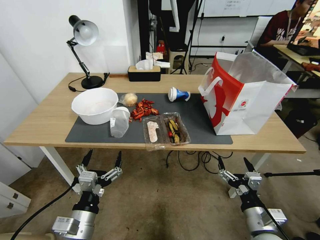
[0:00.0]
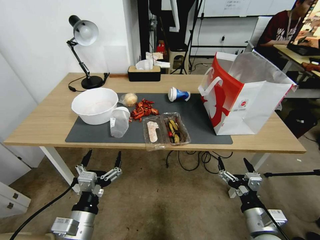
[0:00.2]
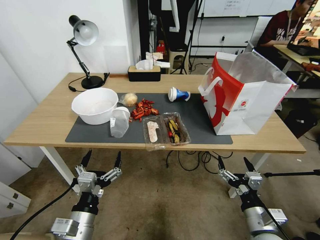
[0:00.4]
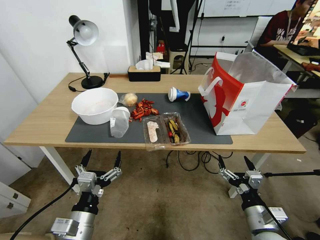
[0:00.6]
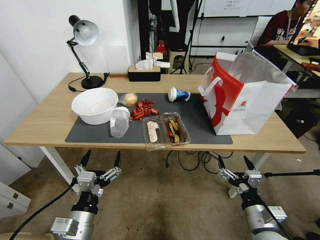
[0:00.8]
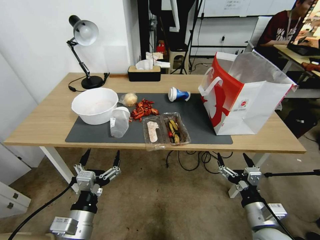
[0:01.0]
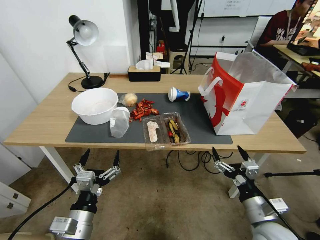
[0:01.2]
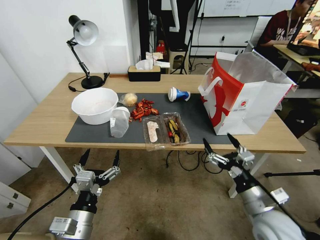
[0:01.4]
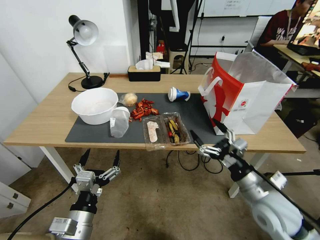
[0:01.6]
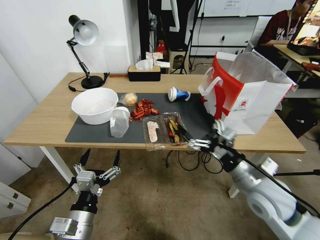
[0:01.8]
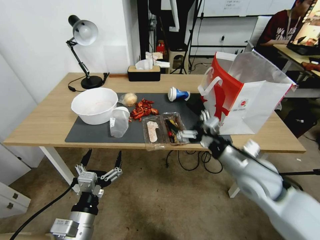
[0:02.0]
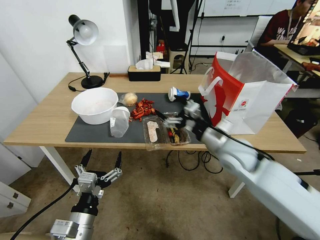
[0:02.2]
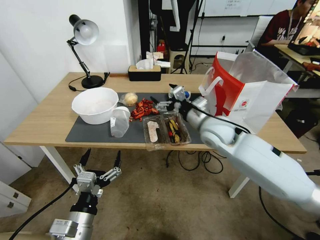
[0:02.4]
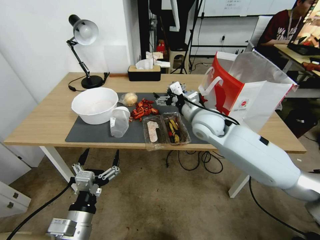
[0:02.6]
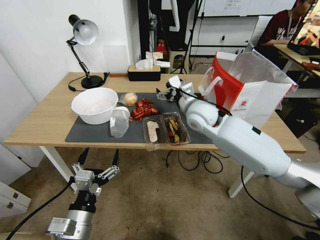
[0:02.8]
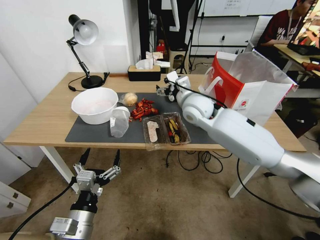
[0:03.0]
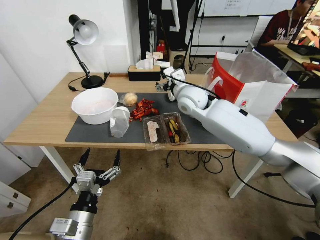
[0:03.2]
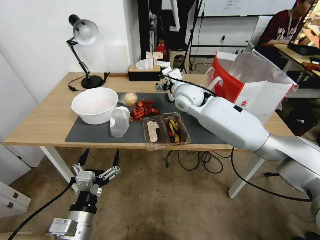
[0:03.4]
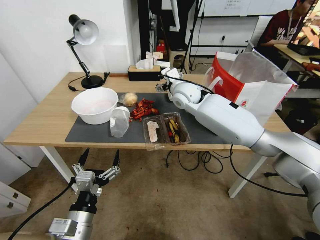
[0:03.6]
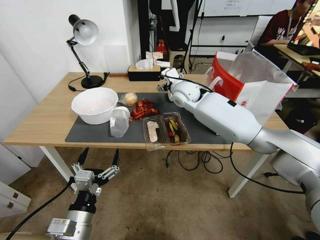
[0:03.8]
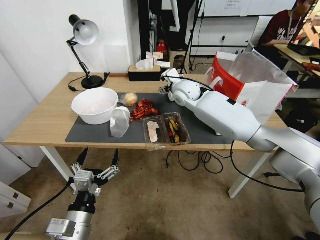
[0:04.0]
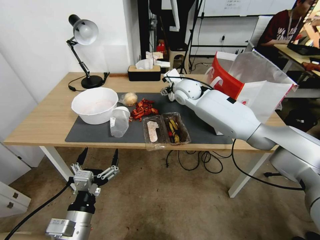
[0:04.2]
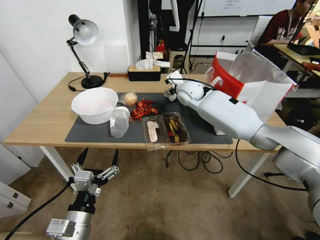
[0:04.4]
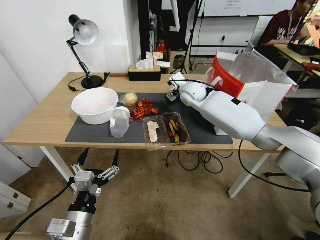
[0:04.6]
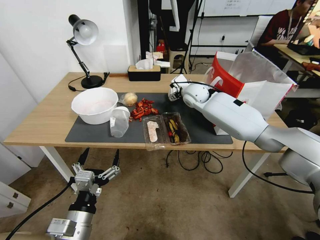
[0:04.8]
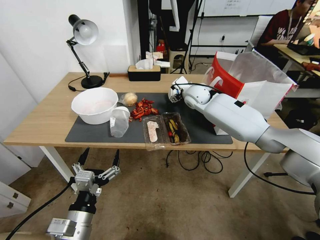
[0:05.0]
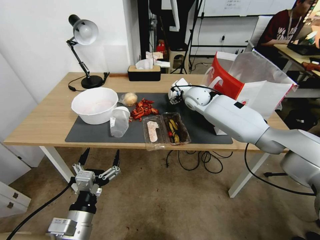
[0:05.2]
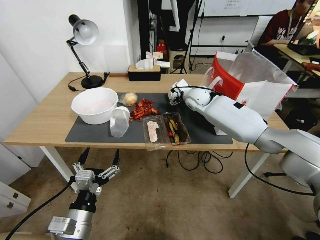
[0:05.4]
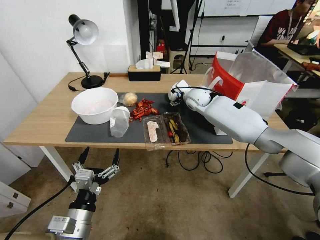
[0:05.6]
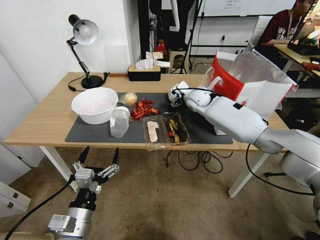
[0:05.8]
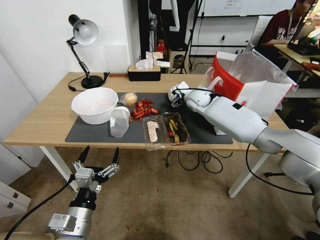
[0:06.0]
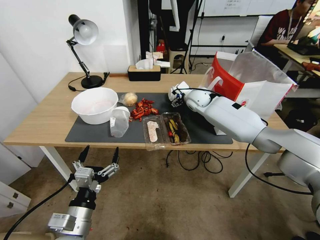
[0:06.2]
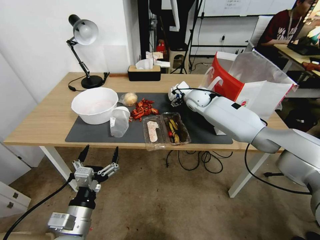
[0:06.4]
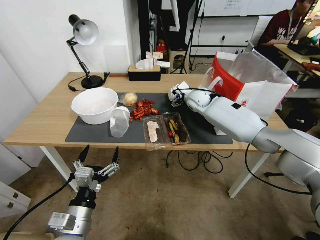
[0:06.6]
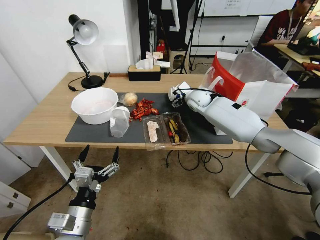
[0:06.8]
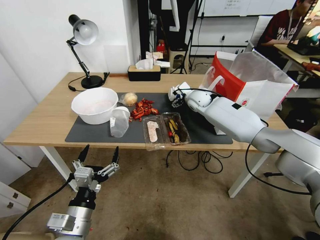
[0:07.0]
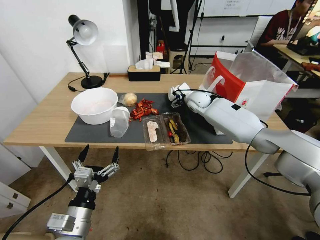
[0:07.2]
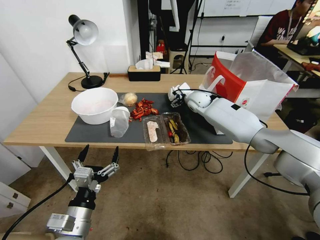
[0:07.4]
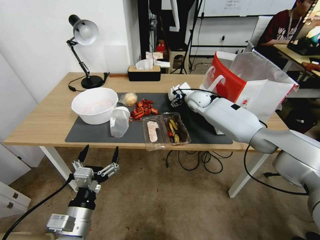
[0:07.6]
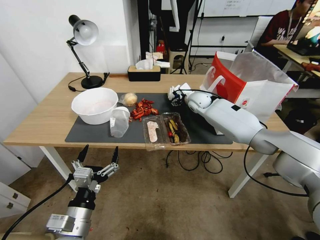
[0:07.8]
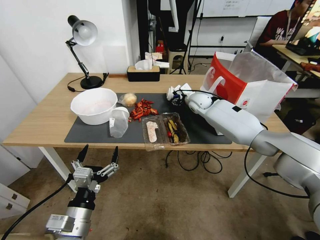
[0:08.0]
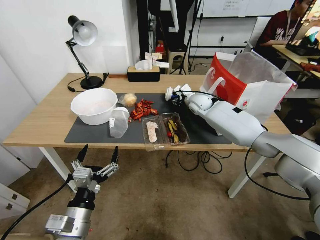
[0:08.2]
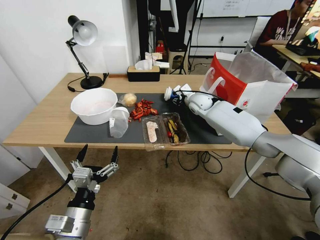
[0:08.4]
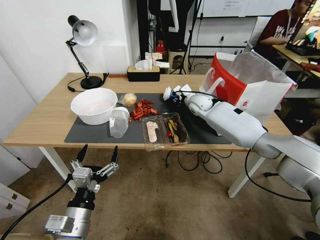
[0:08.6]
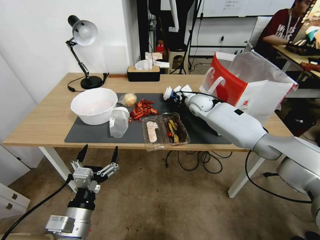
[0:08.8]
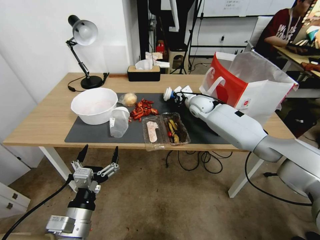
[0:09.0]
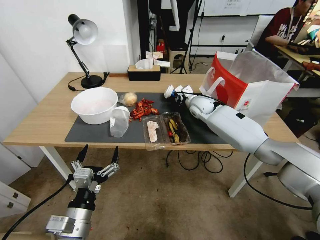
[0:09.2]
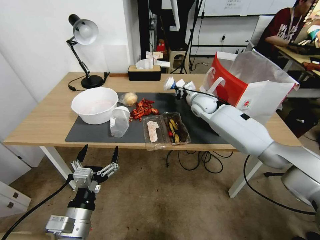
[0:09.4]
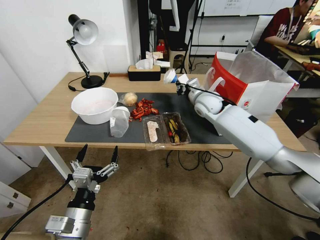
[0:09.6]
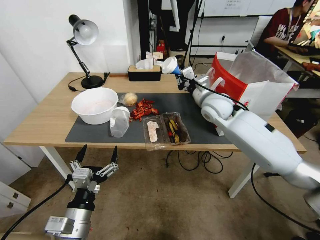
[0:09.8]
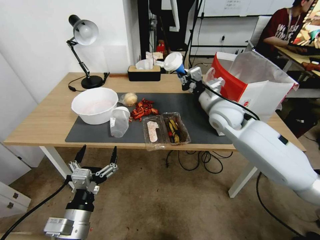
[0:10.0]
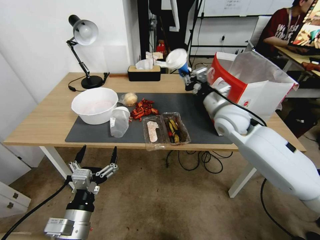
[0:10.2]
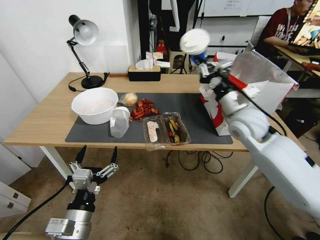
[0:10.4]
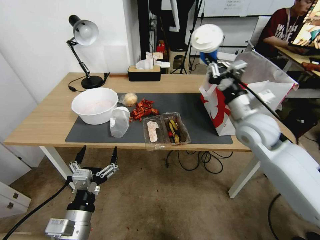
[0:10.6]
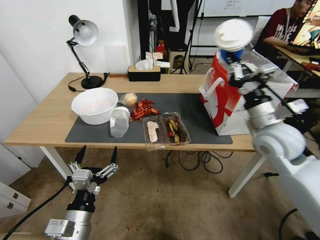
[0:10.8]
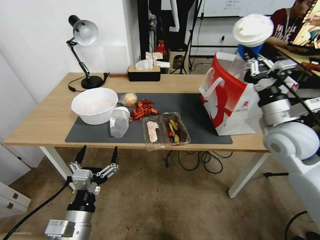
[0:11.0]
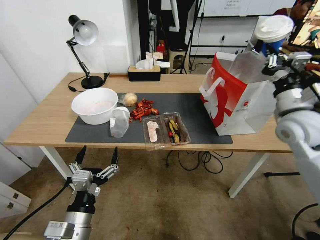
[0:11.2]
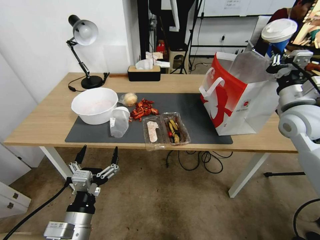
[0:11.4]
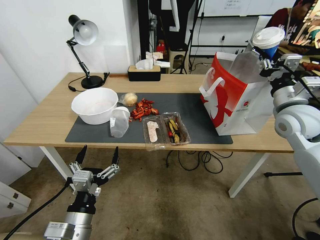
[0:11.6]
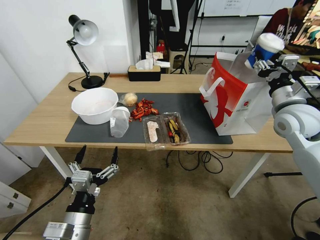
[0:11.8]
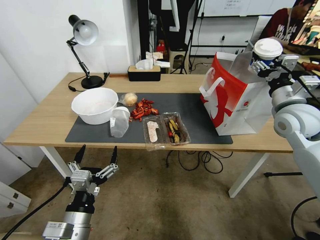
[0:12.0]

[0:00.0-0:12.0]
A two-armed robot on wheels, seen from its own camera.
0:00.0 to 0:01.6: The right gripper heads upward and forward, covering some 10 cm.
0:01.6 to 0:03.0: The right gripper heads forward, to the left and upward, covering roughly 35 cm.
0:03.0 to 0:04.4: The right gripper moves forward, about 10 cm.
0:04.4 to 0:06.0: The right gripper moves approximately 5 cm.
0:06.0 to 0:07.6: The grippers stay close to where they were, moving slightly.
0:07.6 to 0:09.0: The right gripper closes.
0:09.0 to 0:10.4: The right gripper shifts approximately 20 cm backward, upward and to the right.
0:10.4 to 0:12.0: The right gripper heads to the right, covering some 10 cm, and opens.

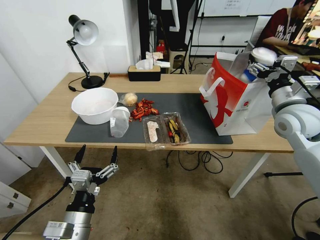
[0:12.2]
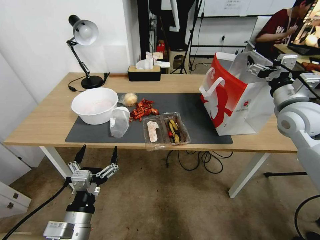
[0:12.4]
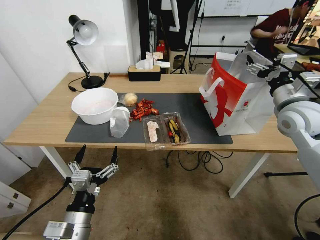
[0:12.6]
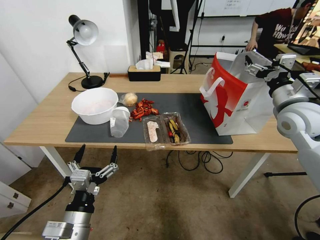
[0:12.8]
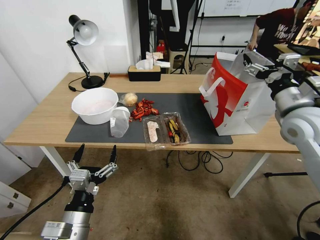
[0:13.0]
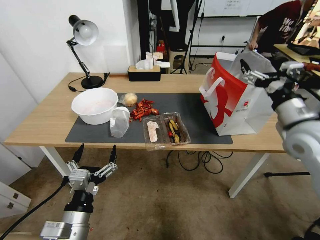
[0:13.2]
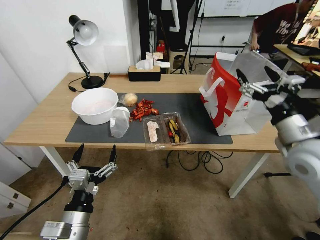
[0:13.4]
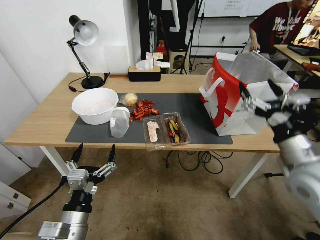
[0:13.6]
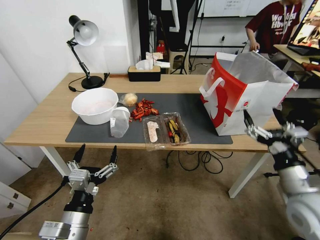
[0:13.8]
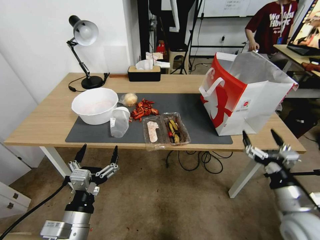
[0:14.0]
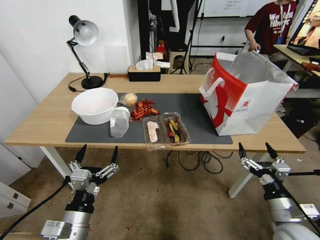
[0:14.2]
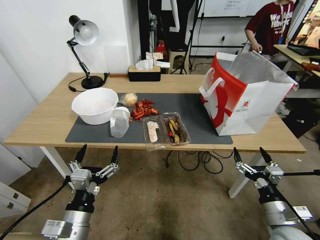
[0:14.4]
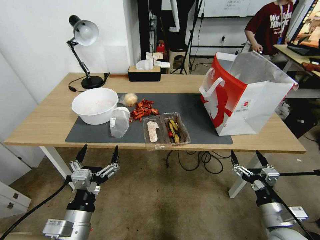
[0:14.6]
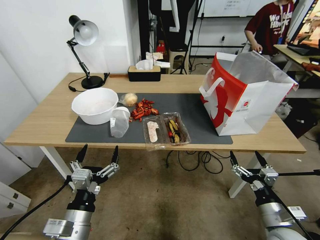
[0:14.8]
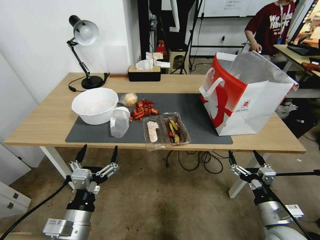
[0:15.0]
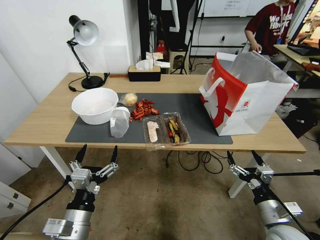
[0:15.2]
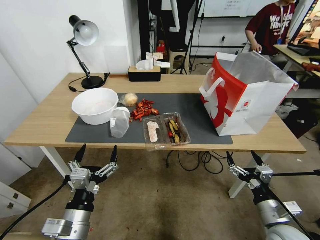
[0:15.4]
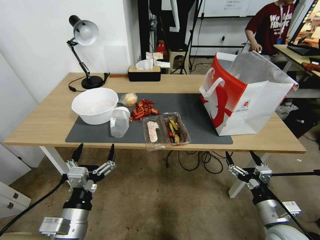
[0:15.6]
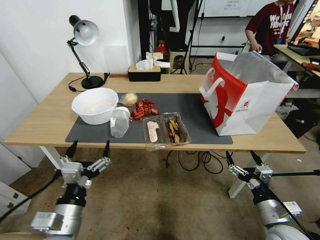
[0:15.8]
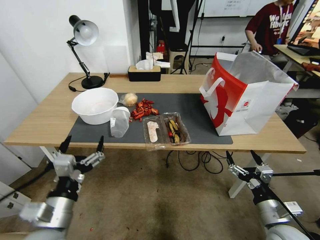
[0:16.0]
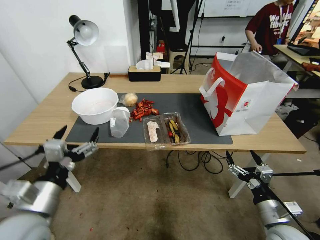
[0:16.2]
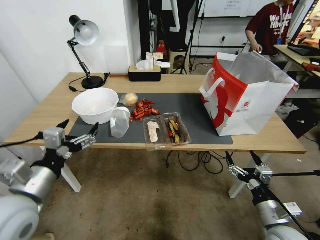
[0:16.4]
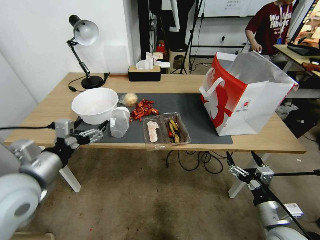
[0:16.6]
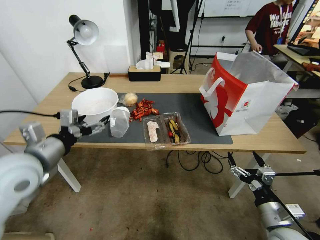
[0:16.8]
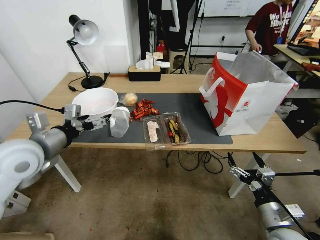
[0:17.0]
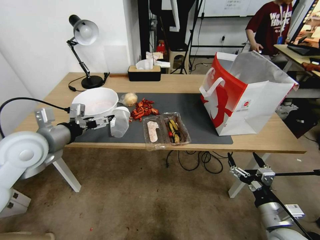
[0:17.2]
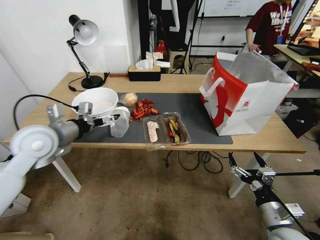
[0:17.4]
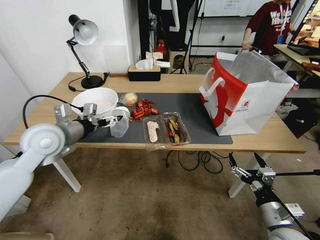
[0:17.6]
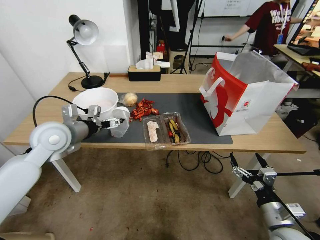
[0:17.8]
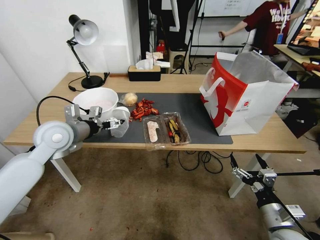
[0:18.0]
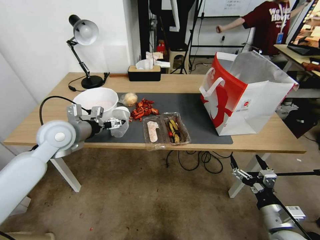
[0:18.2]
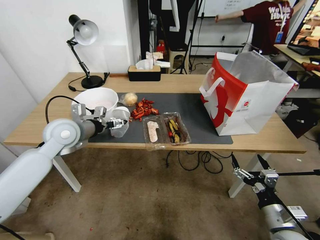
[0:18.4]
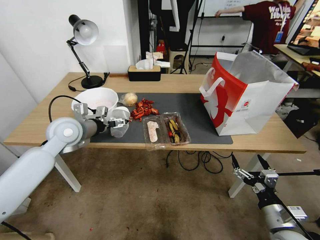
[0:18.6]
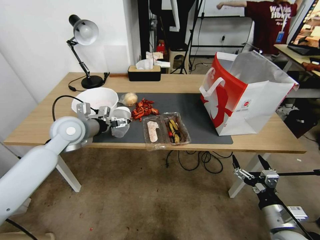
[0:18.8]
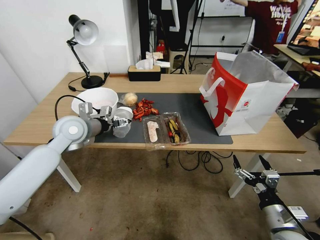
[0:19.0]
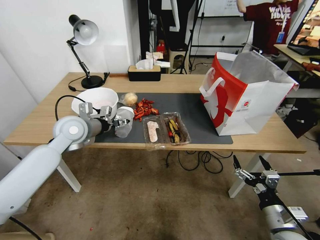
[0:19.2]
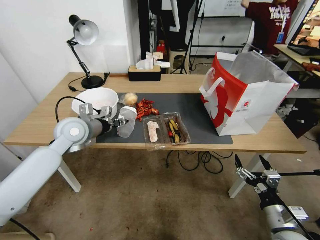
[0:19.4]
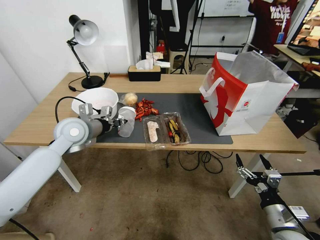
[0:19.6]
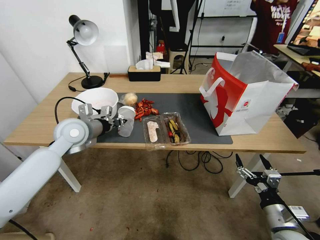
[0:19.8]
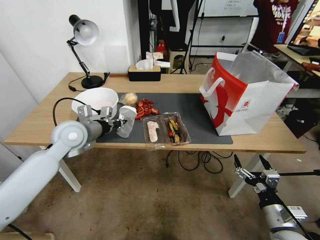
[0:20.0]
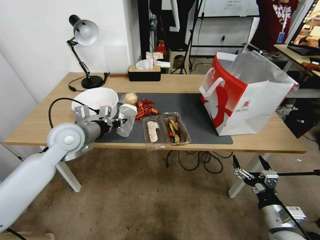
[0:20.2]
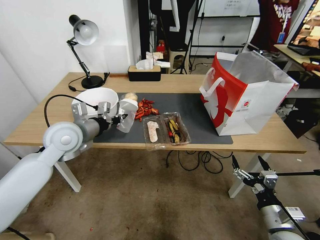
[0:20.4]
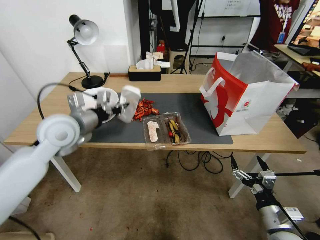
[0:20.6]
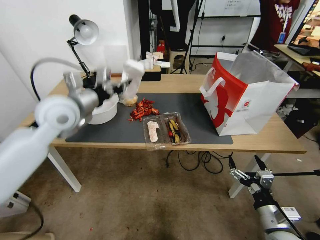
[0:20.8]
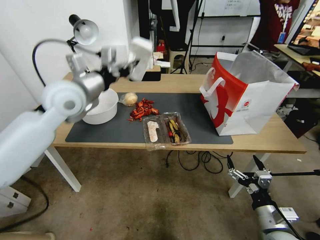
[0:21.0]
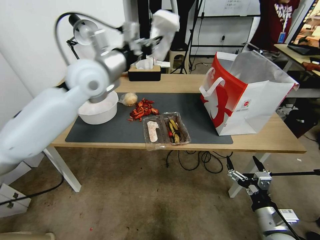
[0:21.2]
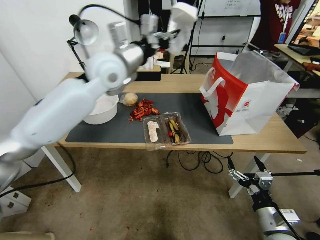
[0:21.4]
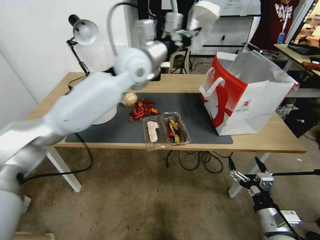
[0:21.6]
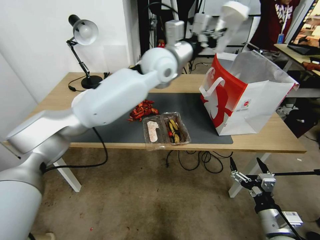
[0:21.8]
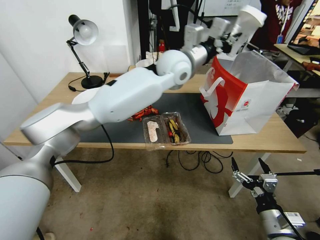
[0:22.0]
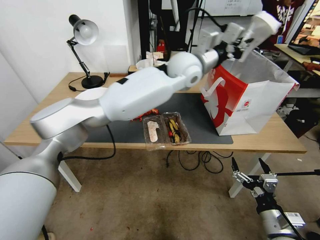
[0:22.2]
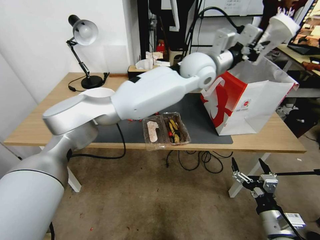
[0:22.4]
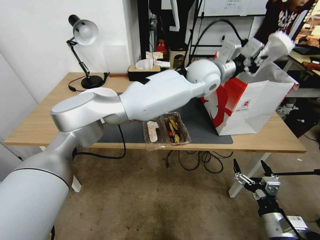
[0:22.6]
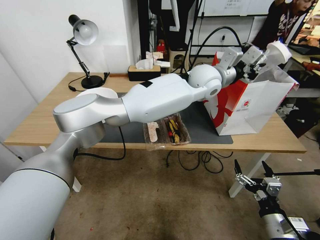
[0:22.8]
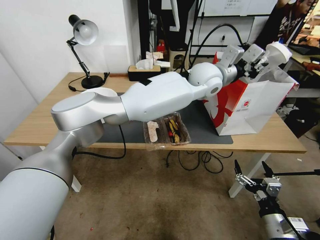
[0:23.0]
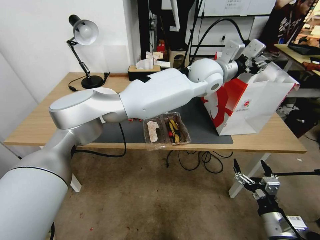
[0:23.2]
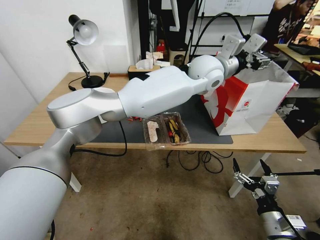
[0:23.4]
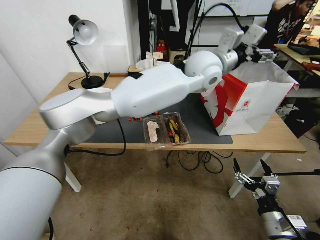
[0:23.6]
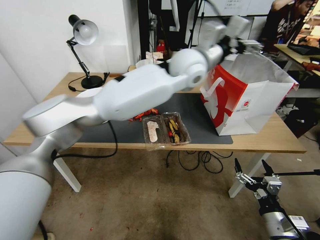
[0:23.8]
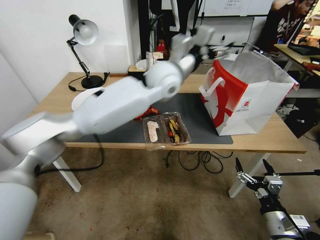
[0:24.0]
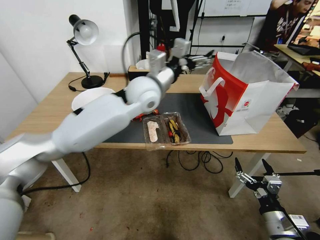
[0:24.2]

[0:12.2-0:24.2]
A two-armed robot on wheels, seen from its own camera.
0:12.2 to 0:13.8: The right gripper goes about 20 cm backward and downward.
0:13.8 to 0:15.2: The right gripper is displaced downward by about 15 cm.
0:15.2 to 0:16.6: The left gripper goes some 20 cm upward, forward and to the left.
0:16.6 to 0:18.2: The left gripper goes approximately 15 cm forward.
0:18.2 to 0:19.8: The left gripper closes.
0:19.8 to 0:21.2: The left gripper goes approximately 20 cm upward and to the right.
0:21.2 to 0:22.6: The left gripper shifts some 30 cm to the right.
0:22.6 to 0:24.2: The left gripper heads to the left, covering roughly 15 cm, and opens.
